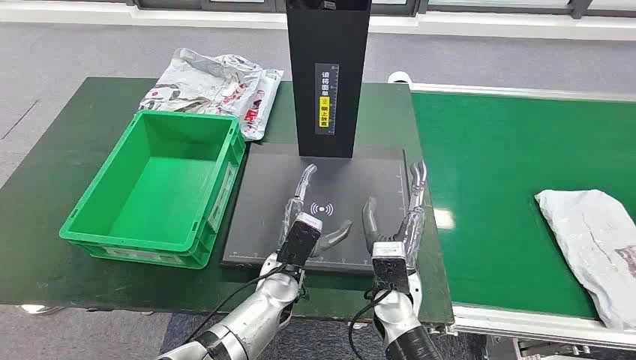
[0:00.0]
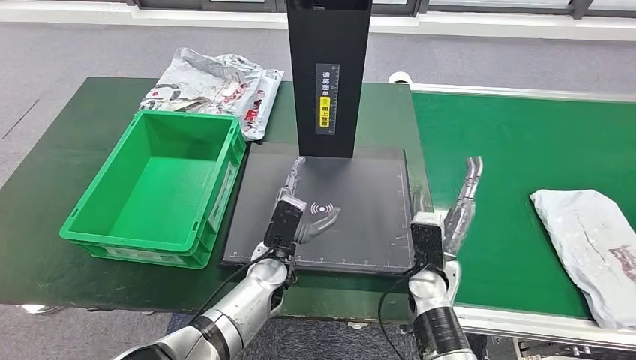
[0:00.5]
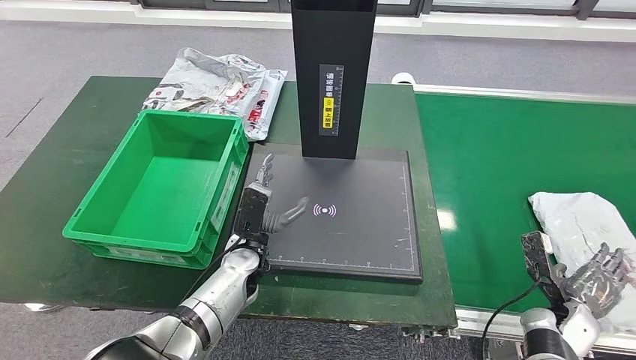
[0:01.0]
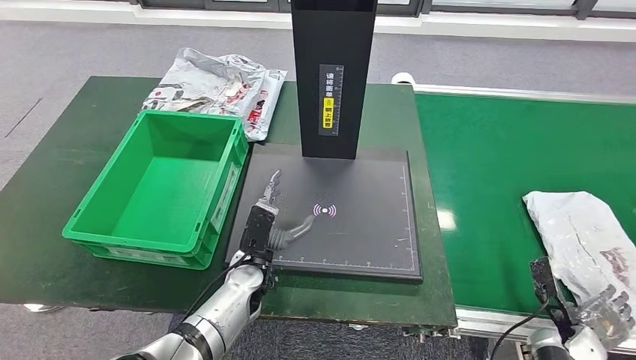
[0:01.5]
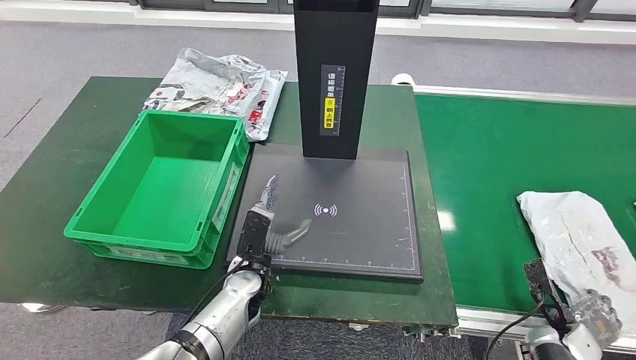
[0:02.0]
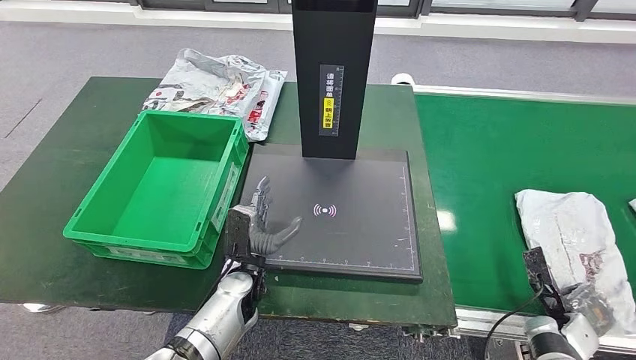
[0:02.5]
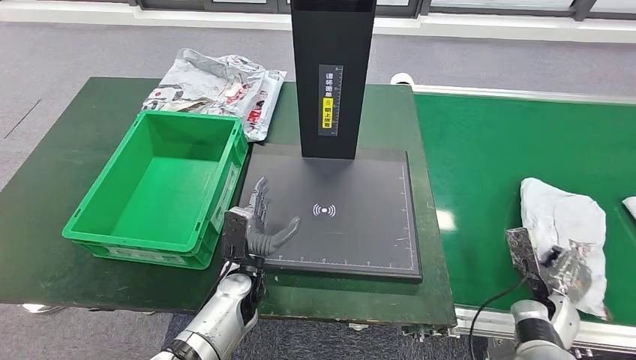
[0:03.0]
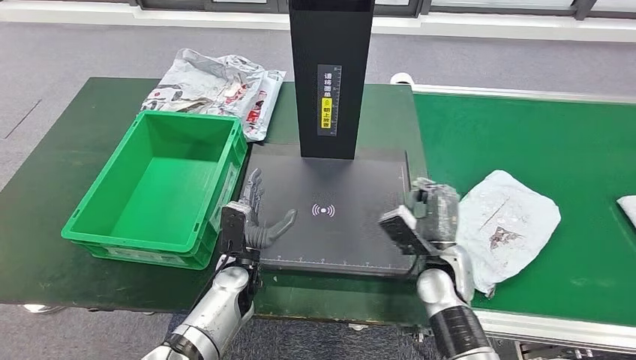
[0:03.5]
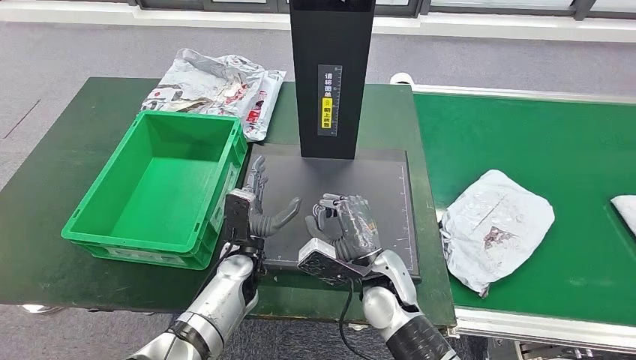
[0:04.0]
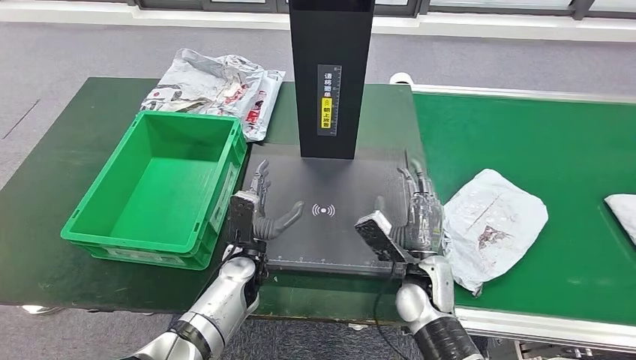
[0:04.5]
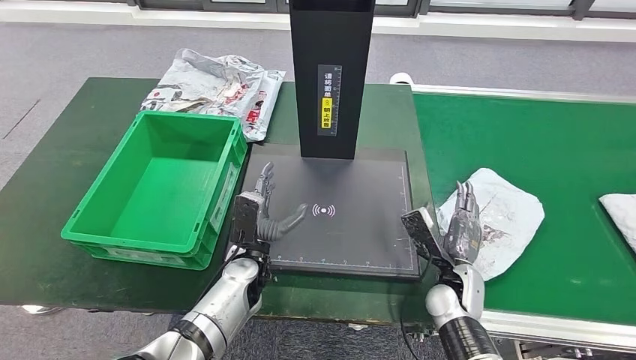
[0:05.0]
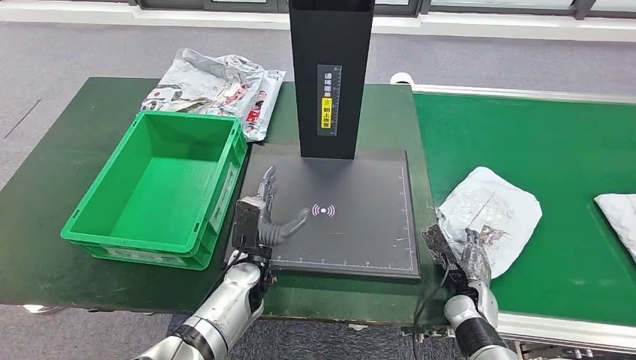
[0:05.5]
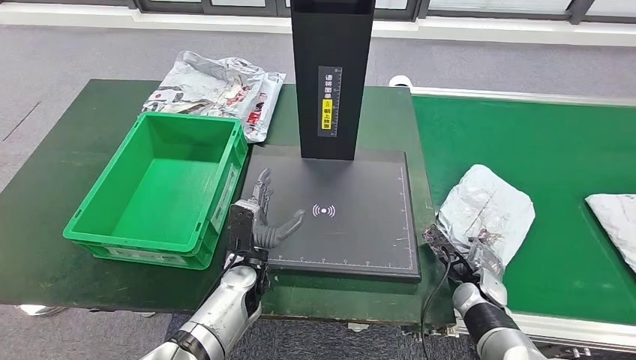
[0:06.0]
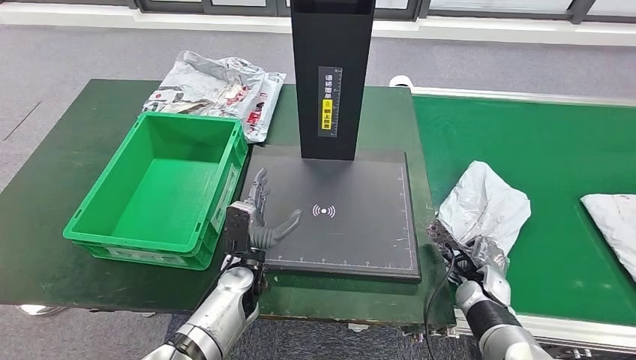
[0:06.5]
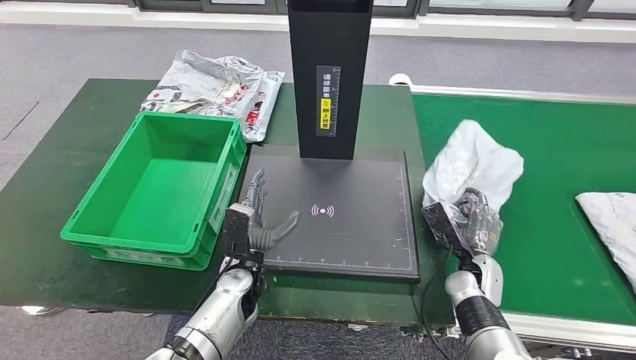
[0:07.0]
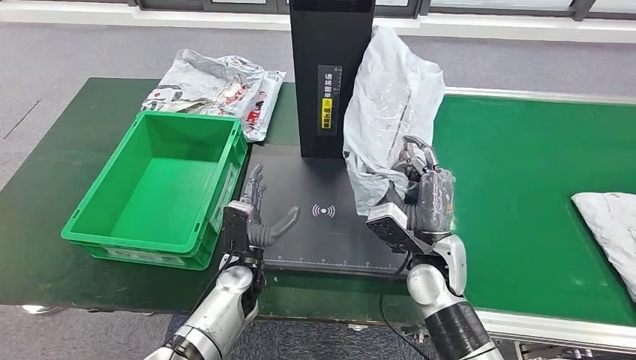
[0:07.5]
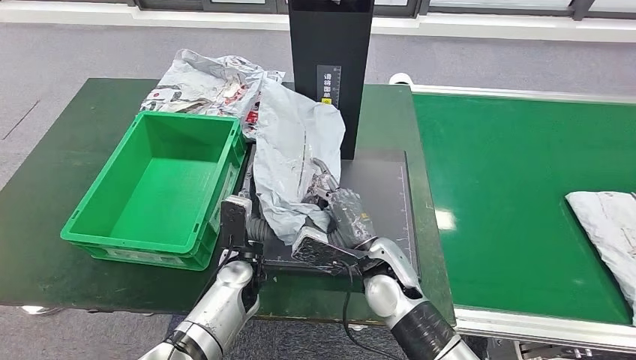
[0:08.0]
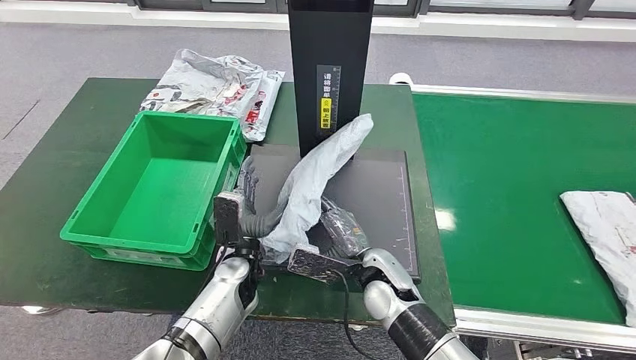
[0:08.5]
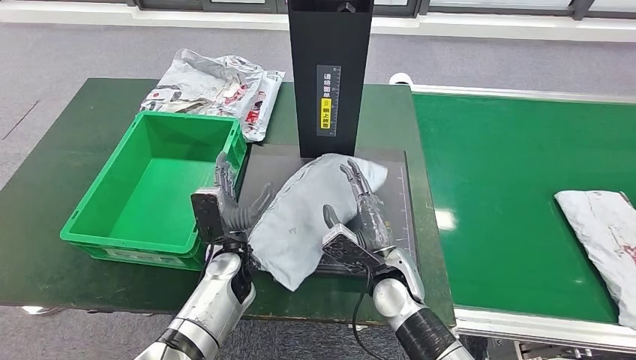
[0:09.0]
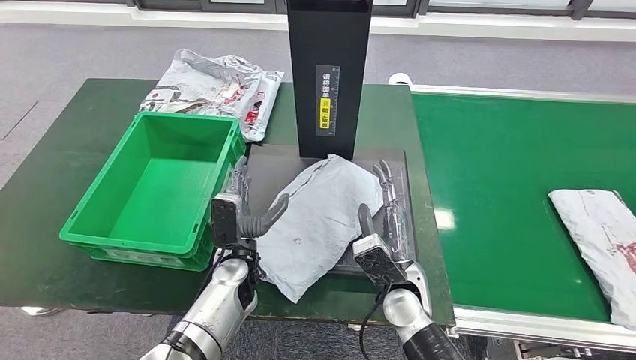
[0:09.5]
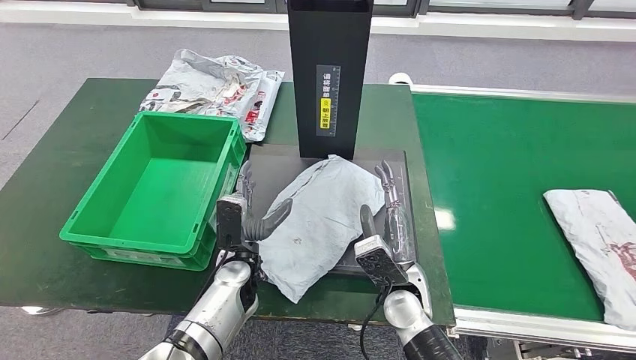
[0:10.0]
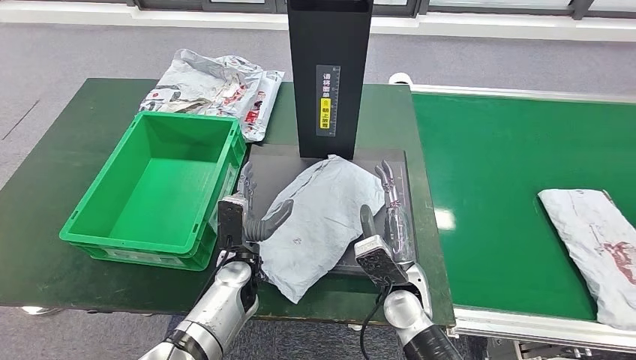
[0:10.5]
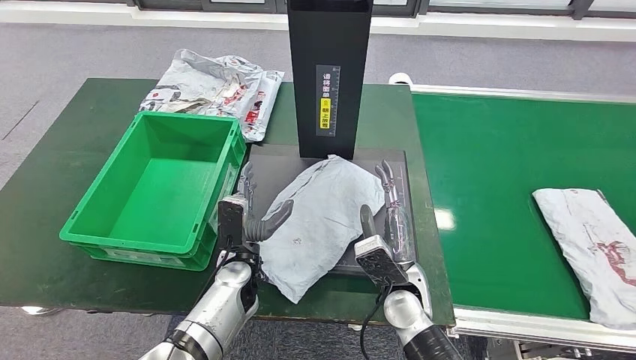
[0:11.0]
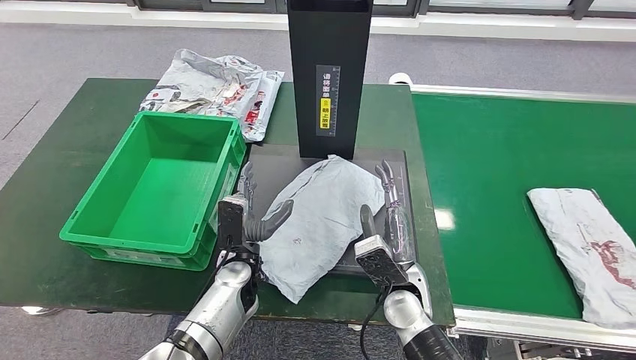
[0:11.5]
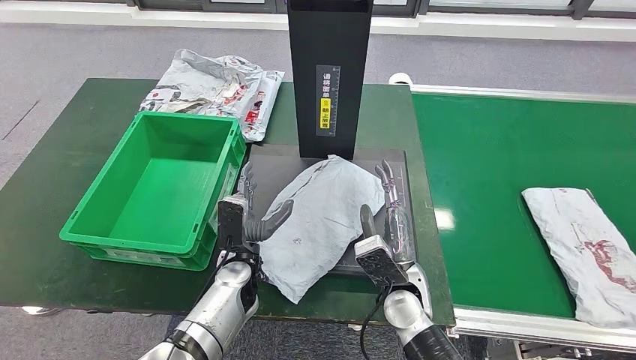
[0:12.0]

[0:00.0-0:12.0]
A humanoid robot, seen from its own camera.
Step, 0:00.0 to 0:08.0: Take the parcel off the conveyor belt.
Step, 0:08.5 to 0:10.0: Place the parcel onto the inbound machine.
0:08.0 to 0:10.0: The right hand changes place by some 5 cm.
0:10.0 to 0:12.0: Neither hand changes place.

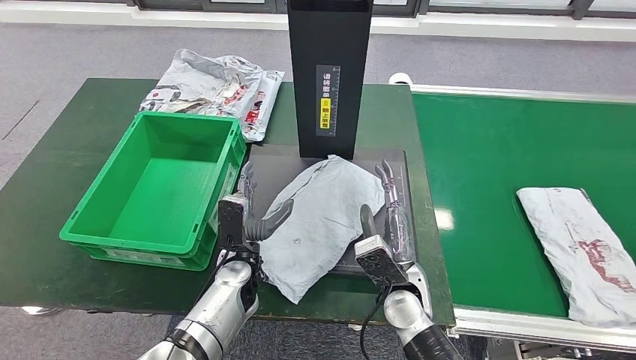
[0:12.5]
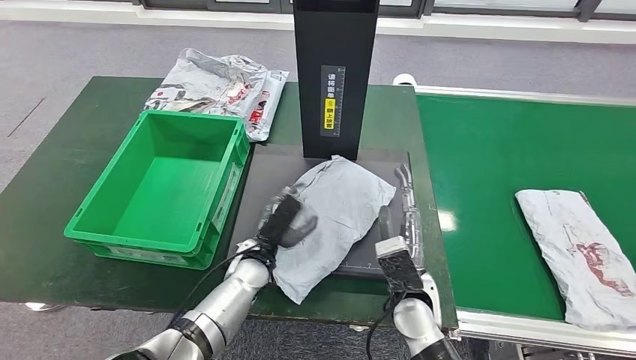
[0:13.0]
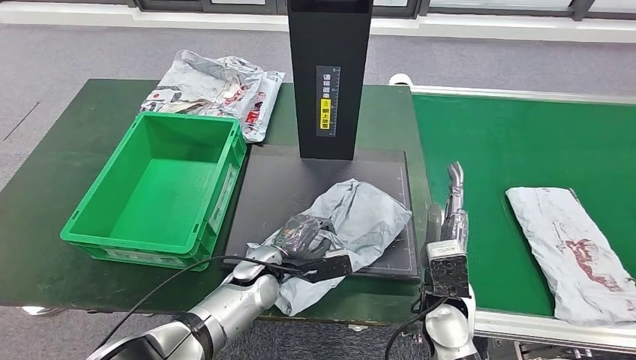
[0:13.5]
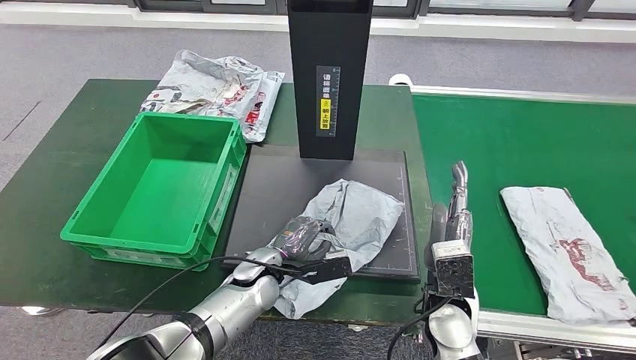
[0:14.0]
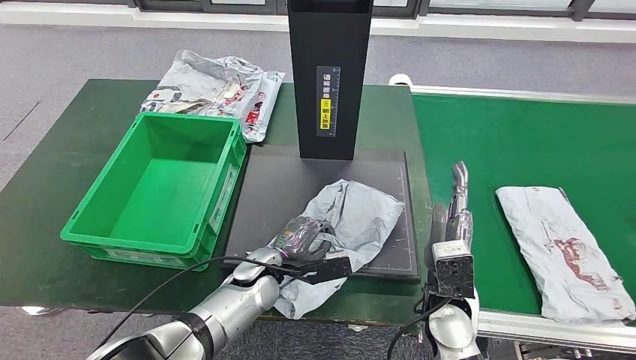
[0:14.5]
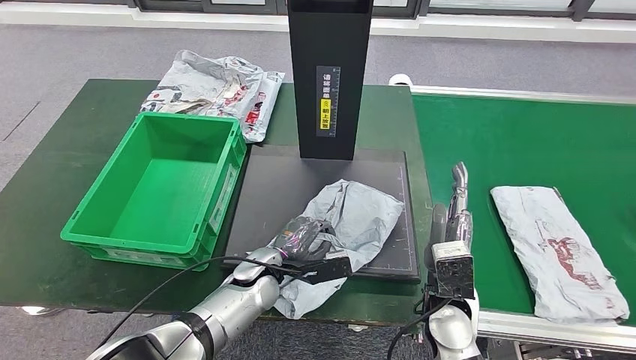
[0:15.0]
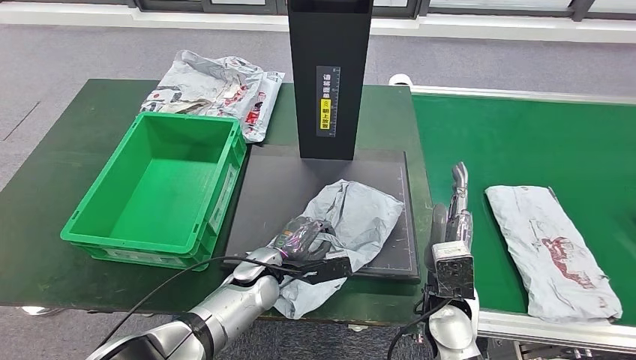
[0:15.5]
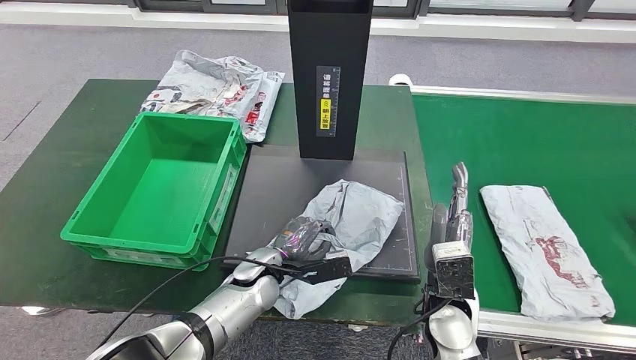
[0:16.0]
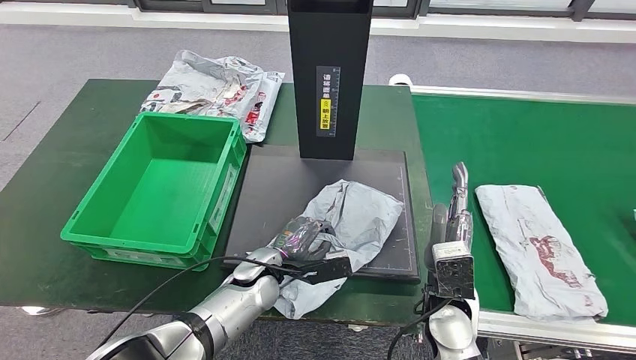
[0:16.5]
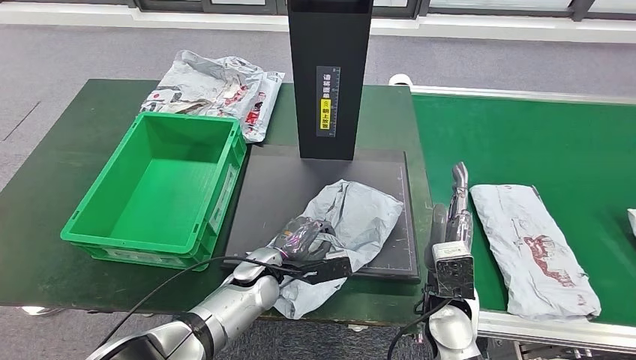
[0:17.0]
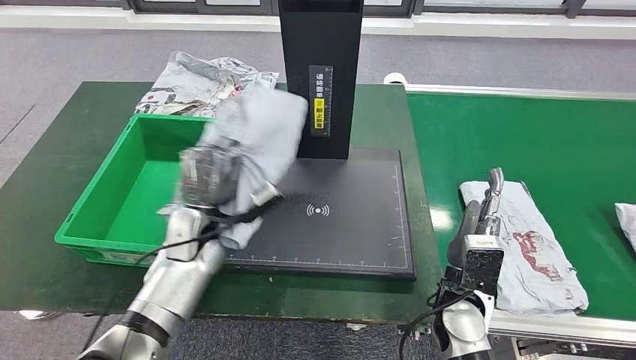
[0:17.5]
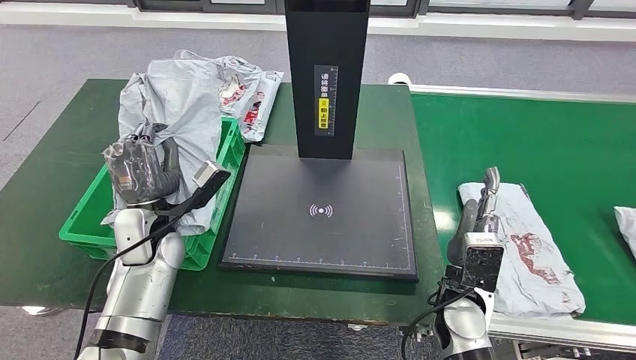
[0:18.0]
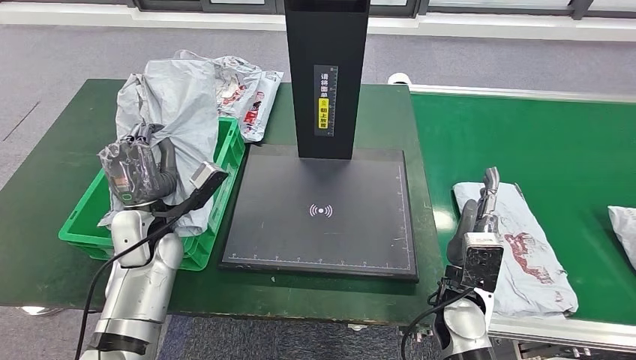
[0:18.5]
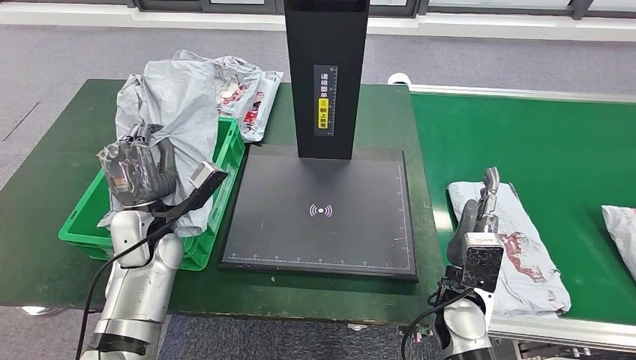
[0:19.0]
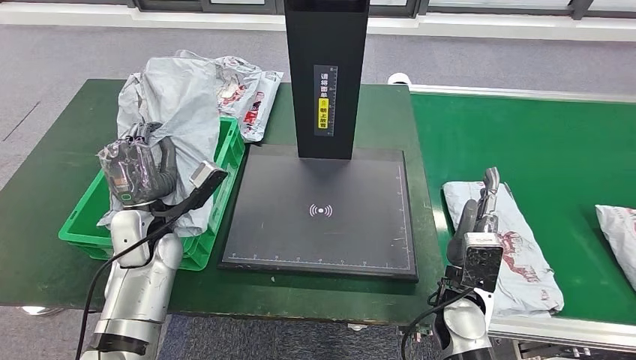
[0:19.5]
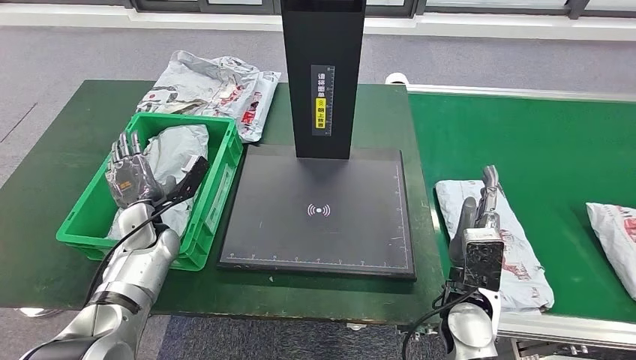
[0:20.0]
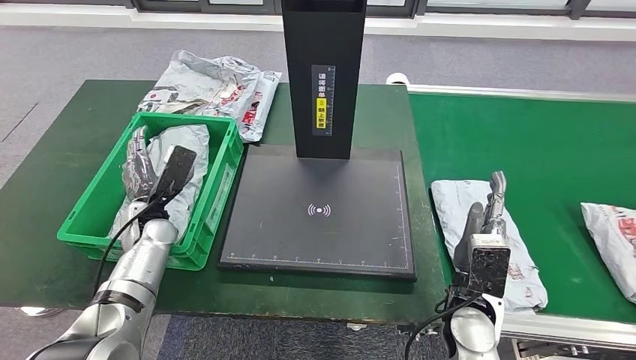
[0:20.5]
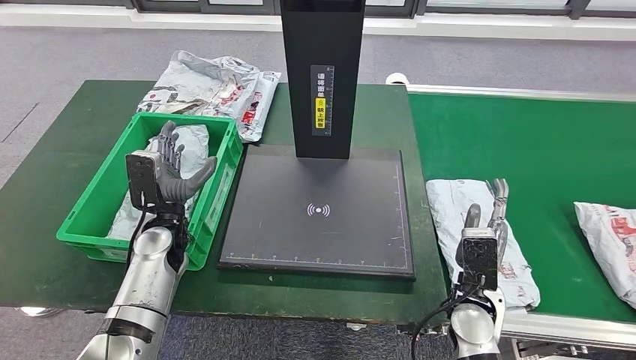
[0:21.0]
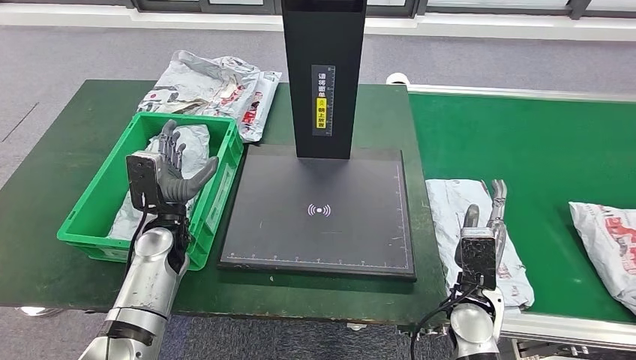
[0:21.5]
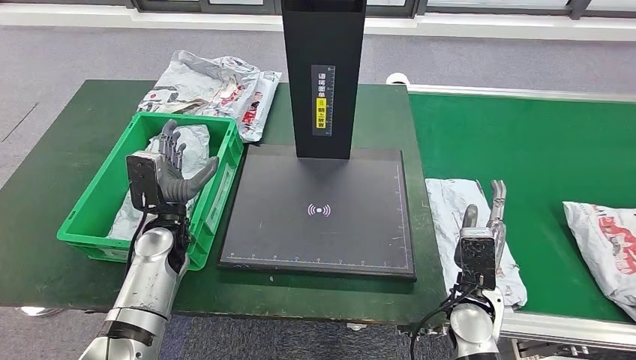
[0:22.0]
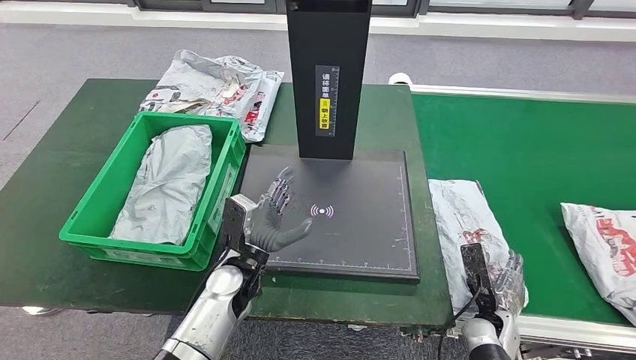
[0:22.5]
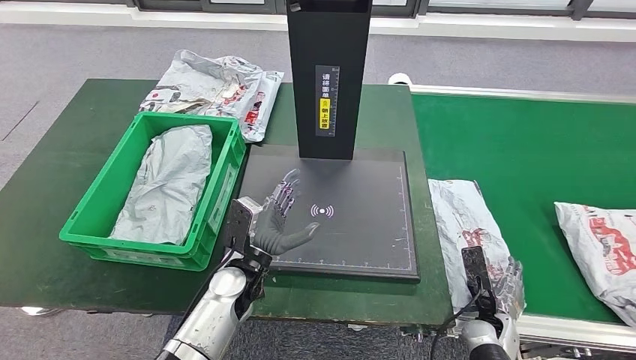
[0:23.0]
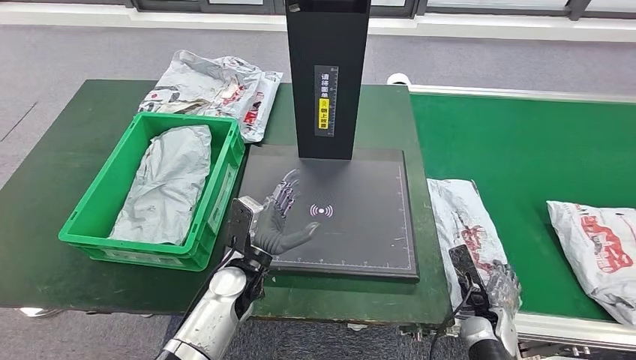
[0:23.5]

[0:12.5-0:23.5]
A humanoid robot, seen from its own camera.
Step, 0:12.5 to 0:18.5: Pick up the parcel from the inbound machine.
Step, 0:19.0 to 0:21.0: Put the parcel inside the courier box.
0:14.5 to 0:16.0: Neither hand changes place.
0:20.0 to 0:21.5: The left hand goes approximately 5 cm to the right.
